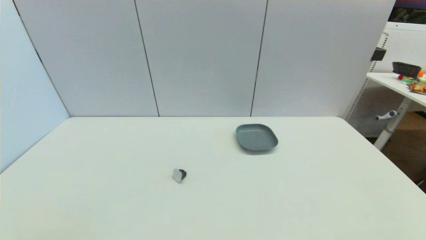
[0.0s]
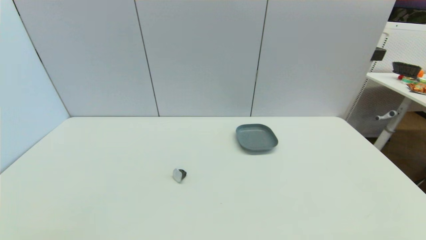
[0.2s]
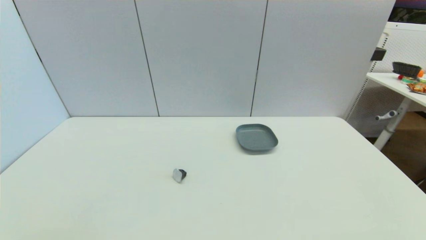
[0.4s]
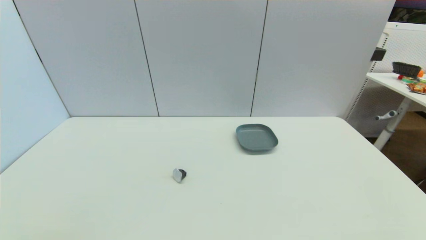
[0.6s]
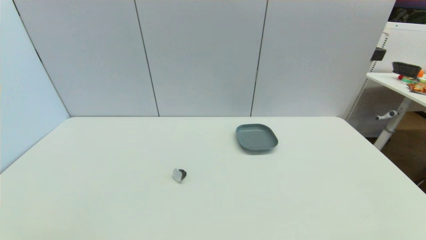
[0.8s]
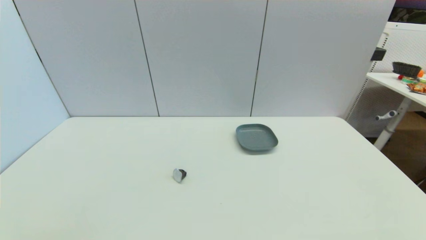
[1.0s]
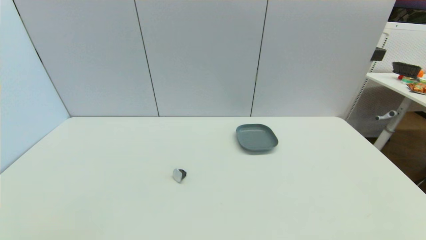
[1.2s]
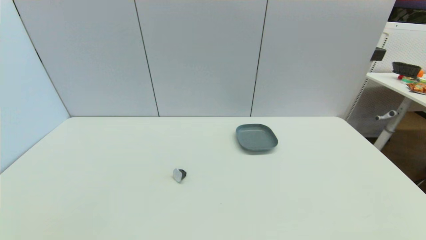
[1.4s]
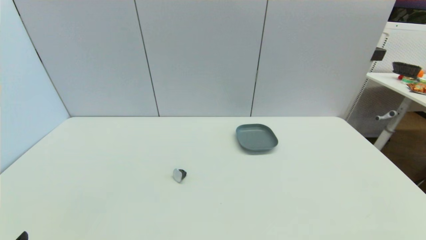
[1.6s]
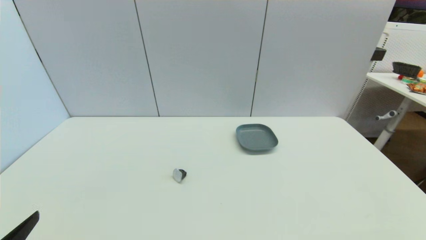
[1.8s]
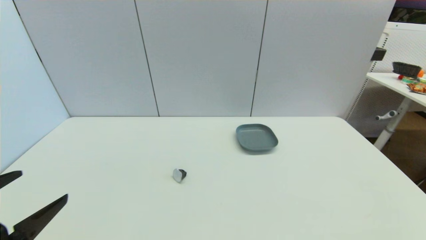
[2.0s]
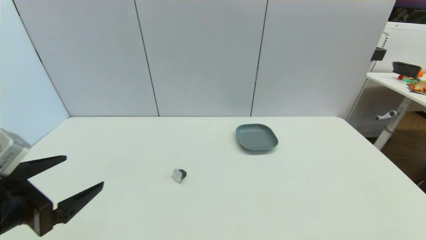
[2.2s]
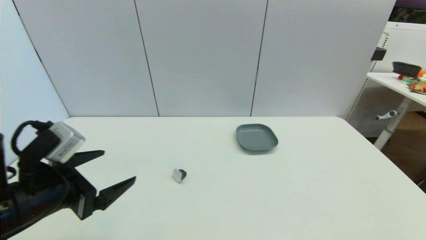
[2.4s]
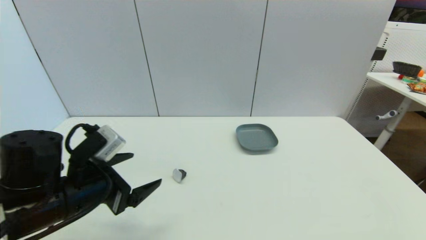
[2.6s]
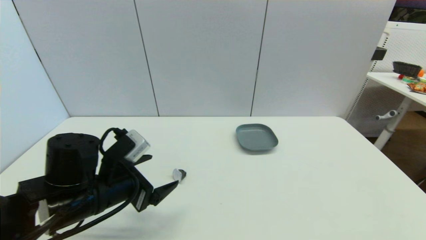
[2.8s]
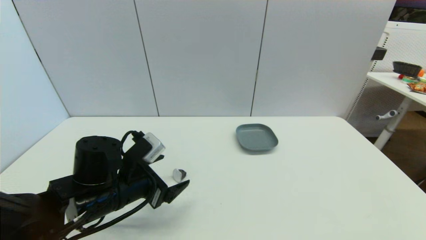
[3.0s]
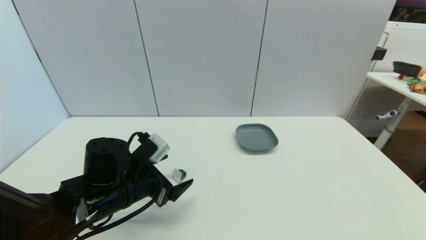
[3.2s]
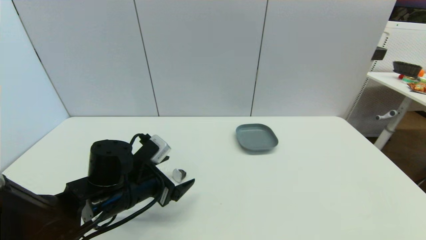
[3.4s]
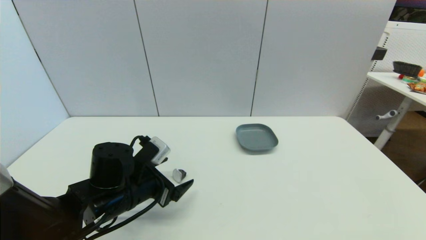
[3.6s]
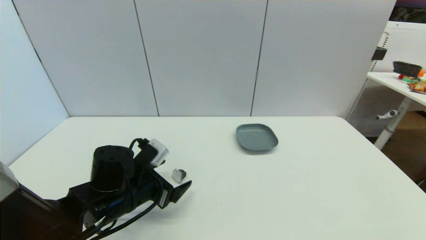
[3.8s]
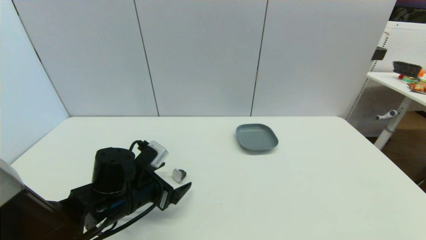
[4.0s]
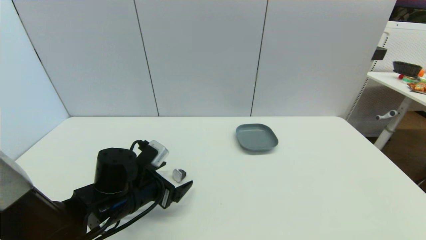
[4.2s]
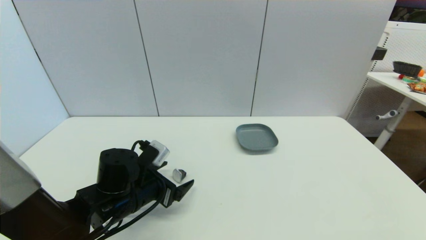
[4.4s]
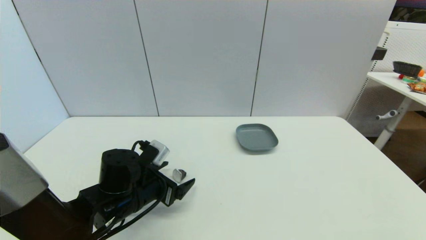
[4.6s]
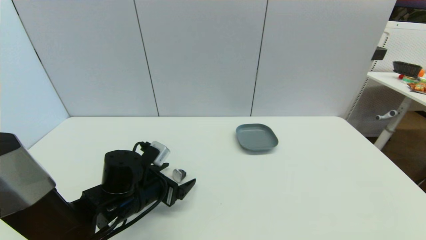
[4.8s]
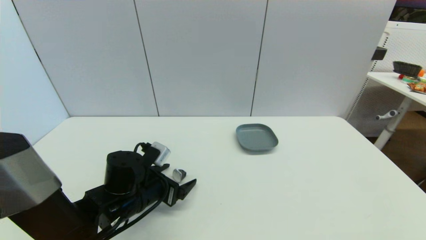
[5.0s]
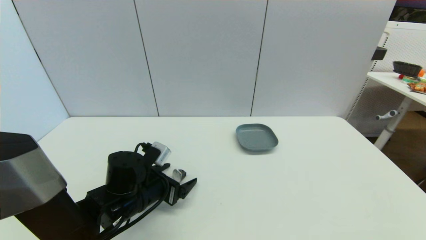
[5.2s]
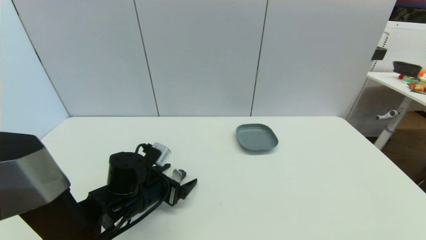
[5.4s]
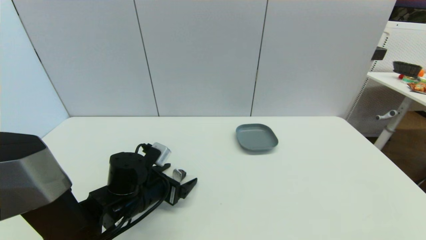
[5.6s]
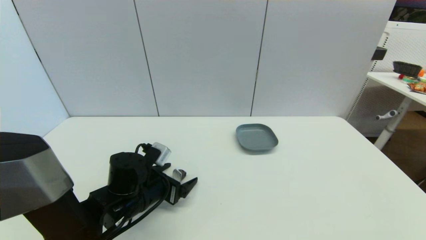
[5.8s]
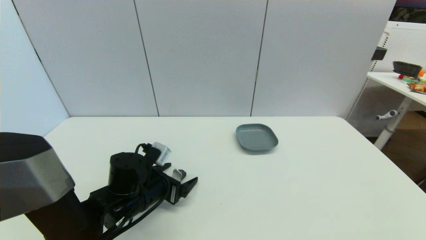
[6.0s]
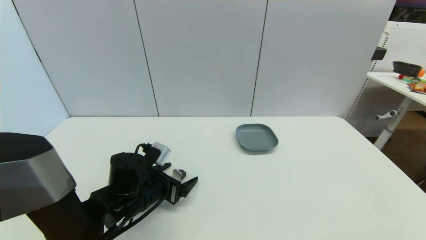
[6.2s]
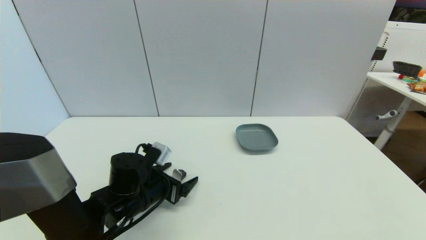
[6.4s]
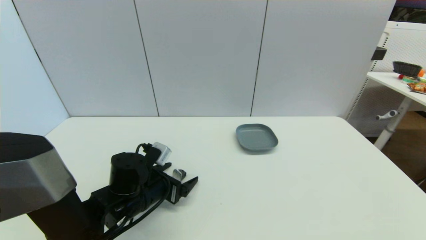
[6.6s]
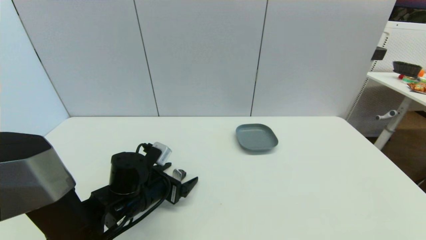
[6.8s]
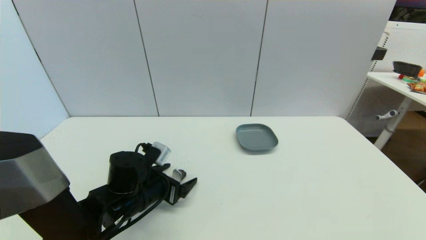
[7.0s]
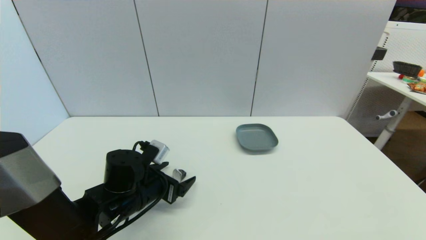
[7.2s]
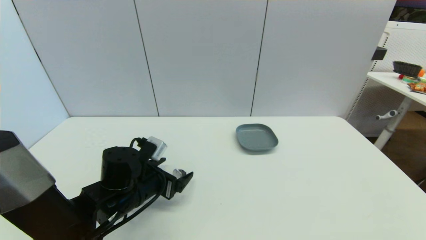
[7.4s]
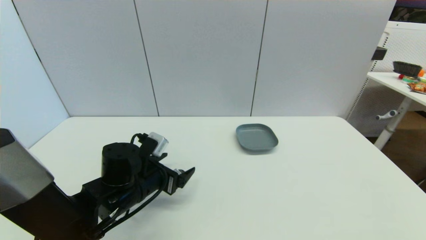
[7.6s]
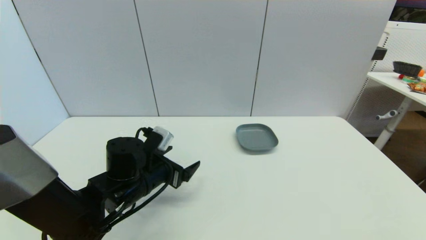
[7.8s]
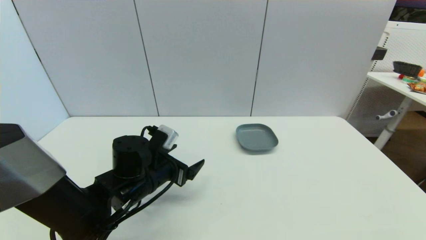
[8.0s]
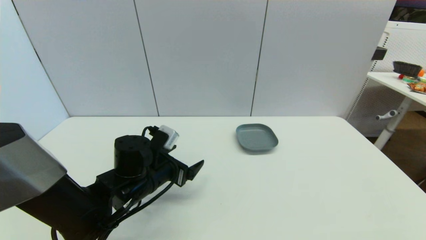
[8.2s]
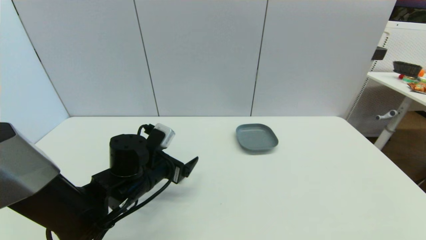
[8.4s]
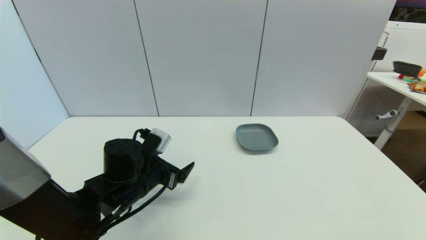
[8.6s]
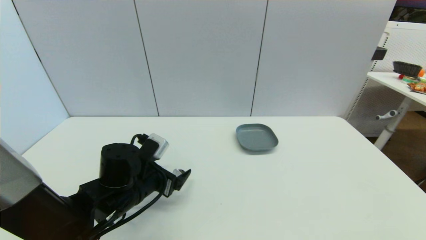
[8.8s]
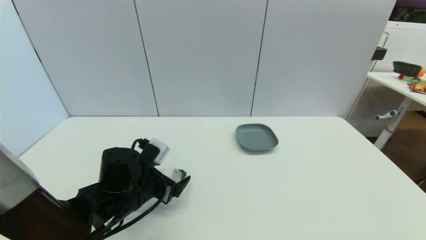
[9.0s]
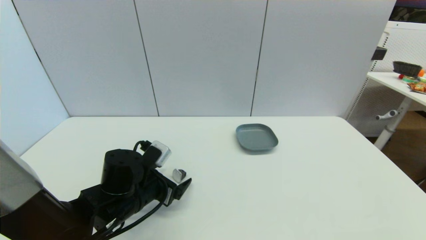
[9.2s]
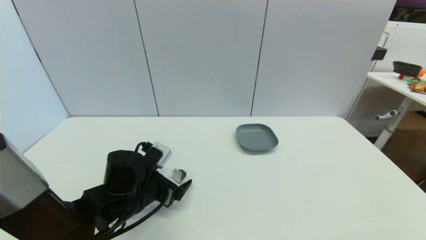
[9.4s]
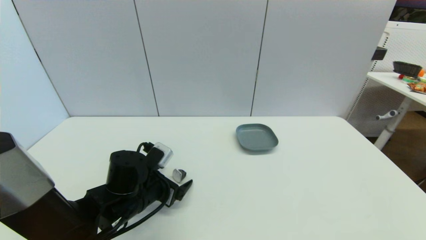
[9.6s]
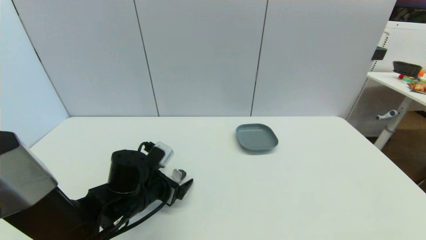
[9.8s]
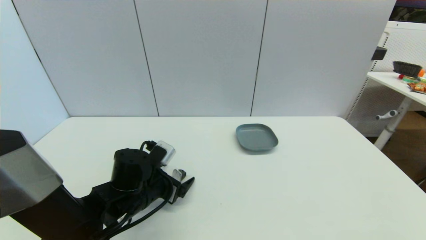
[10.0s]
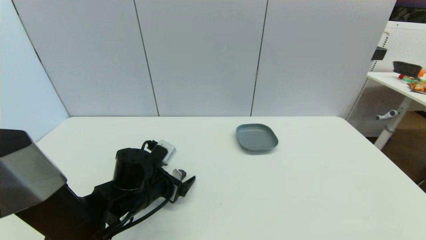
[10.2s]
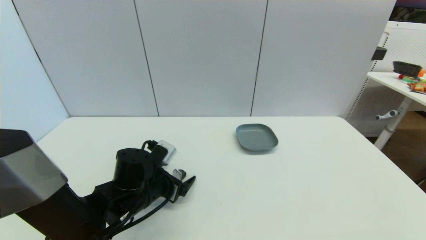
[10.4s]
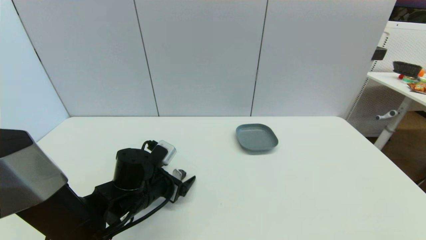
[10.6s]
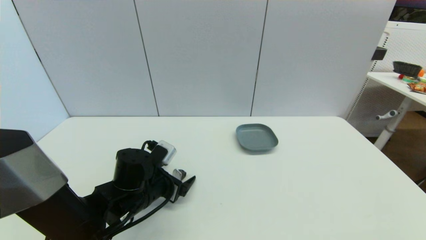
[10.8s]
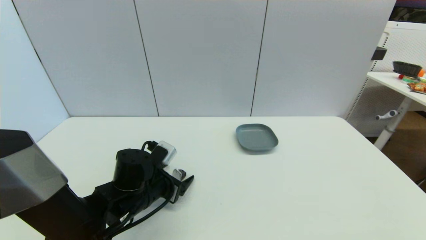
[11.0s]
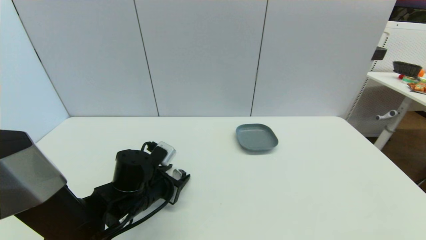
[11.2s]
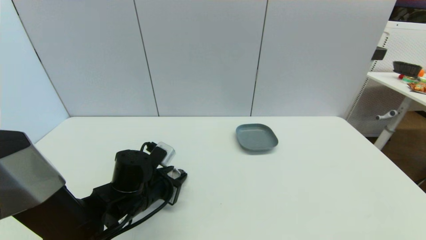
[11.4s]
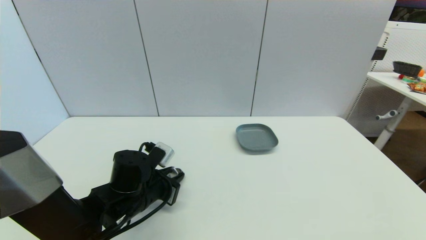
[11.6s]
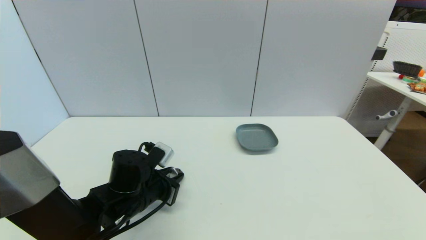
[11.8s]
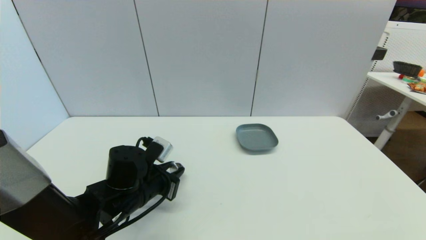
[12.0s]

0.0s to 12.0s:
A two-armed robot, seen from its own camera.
Step, 1.6s to 12.0s: Grasp the coffee capsule with left gripper.
1.6s to 3.0s: The left gripper heads forward and to the right, covering about 25 cm.
3.0s to 4.4s: The grippers stay close to where they were, moving slightly.
4.4s to 10.4s: The grippers move only a little.
10.4s to 12.0s: The left gripper closes its fingers.

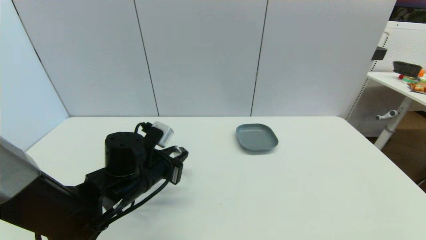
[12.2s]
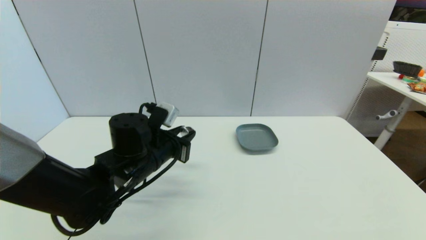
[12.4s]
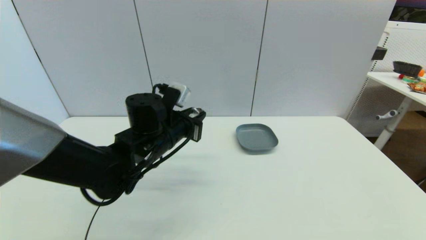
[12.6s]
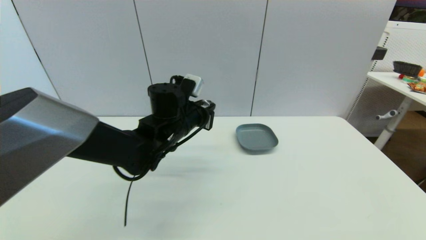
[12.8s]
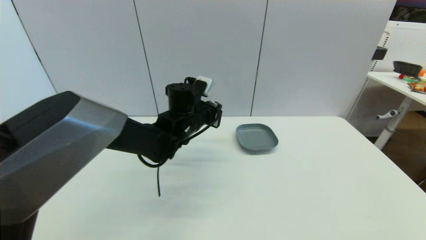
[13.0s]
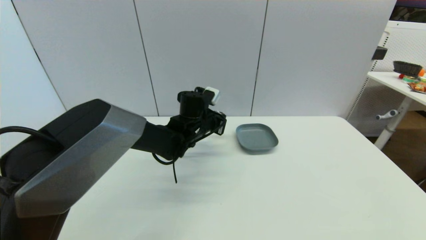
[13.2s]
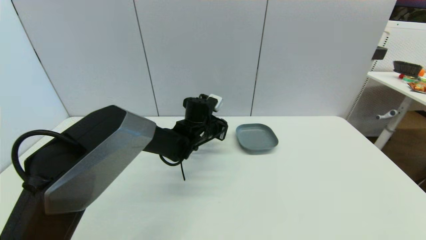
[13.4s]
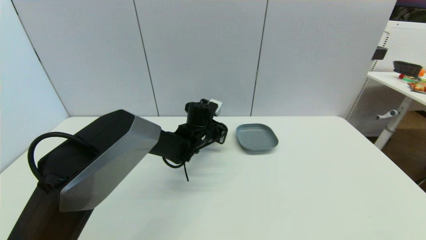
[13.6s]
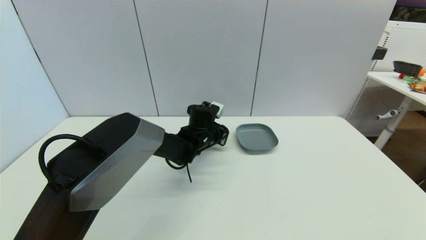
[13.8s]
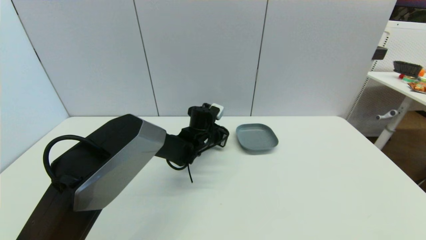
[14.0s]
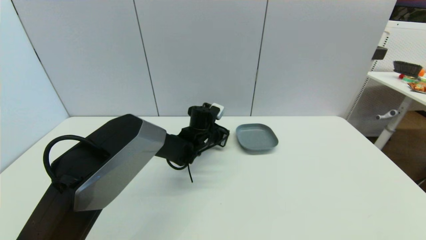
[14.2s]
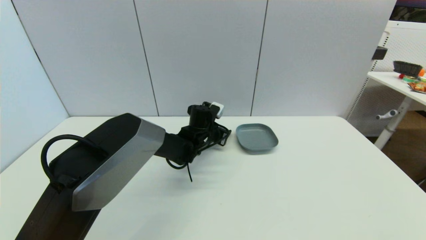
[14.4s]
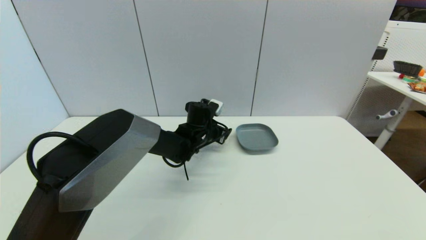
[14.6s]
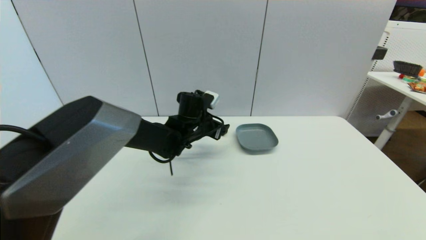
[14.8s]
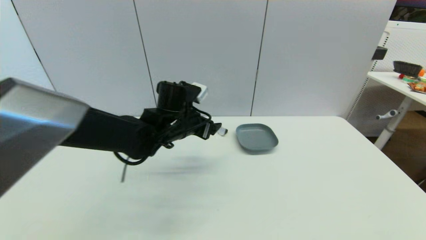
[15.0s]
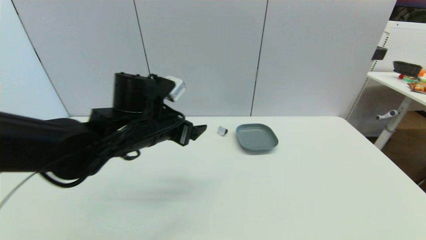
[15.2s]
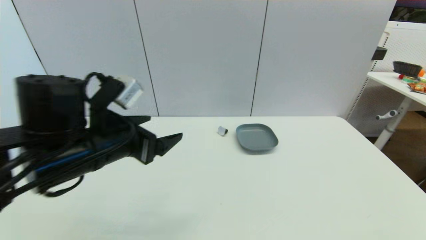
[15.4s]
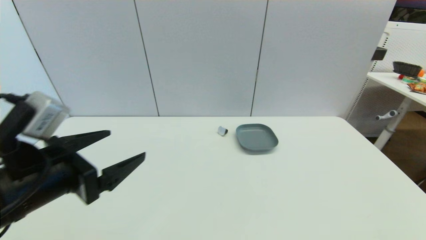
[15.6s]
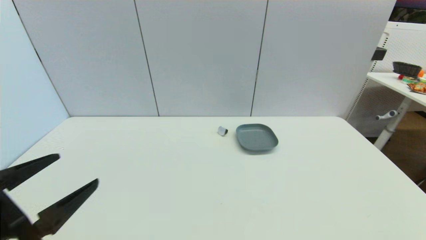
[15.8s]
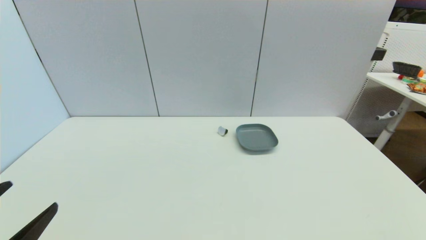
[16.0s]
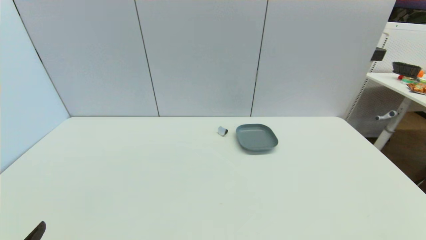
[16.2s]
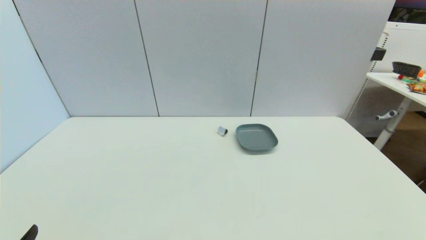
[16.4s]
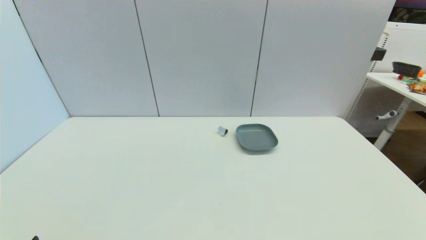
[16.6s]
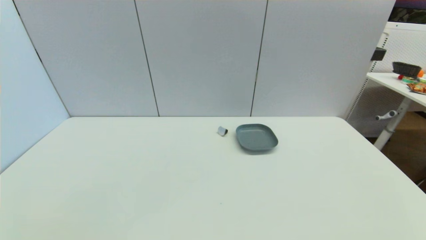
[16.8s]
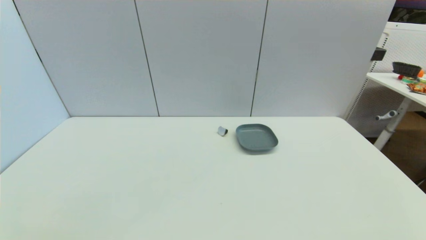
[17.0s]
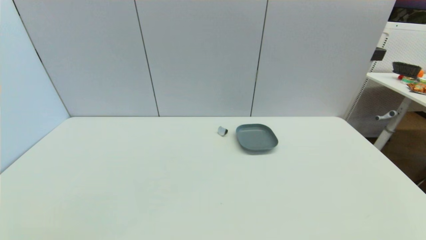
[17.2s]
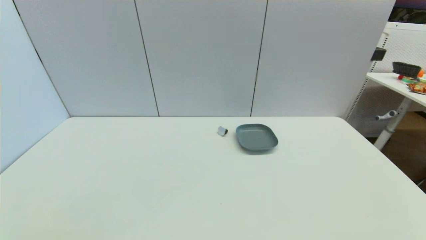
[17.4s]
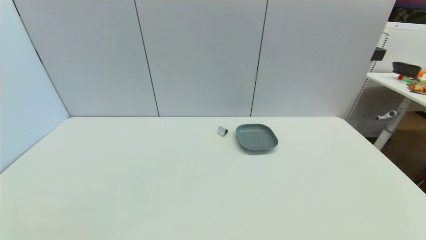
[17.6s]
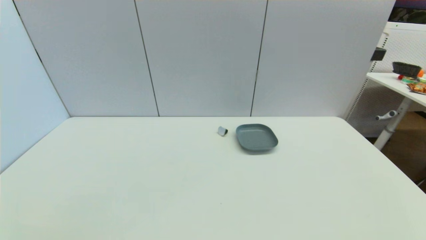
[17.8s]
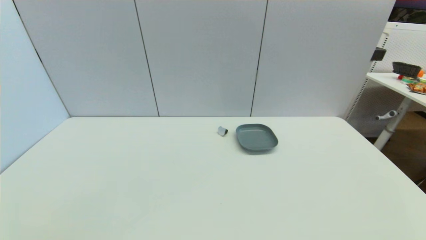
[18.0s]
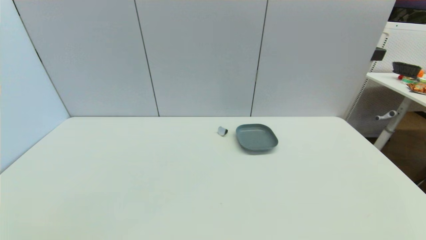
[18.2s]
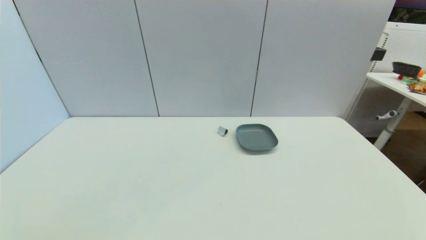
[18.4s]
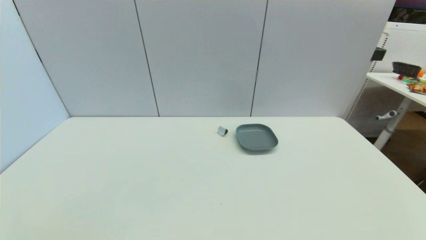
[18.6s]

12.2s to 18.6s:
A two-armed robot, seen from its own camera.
Step, 12.2s to 14.0s: Place the coffee capsule on the table with left gripper.
12.2s to 13.8s: The left gripper is displaced forward and to the right by approximately 20 cm.
13.8s to 15.4s: The left gripper travels backward, to the left and upward by approximately 30 cm, and opens.
15.4s to 17.0s: The left gripper is displaced backward, downward and to the left by approximately 30 cm.
